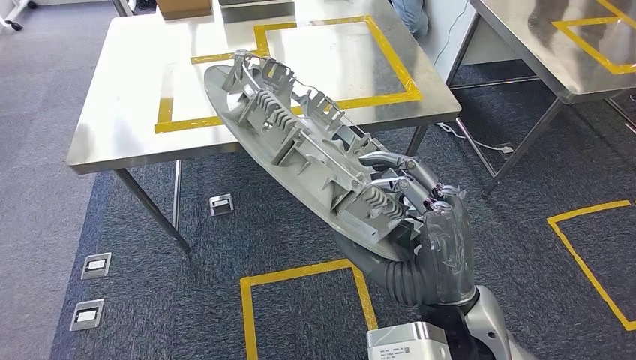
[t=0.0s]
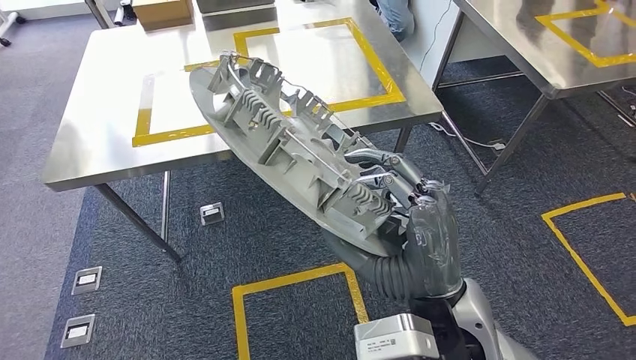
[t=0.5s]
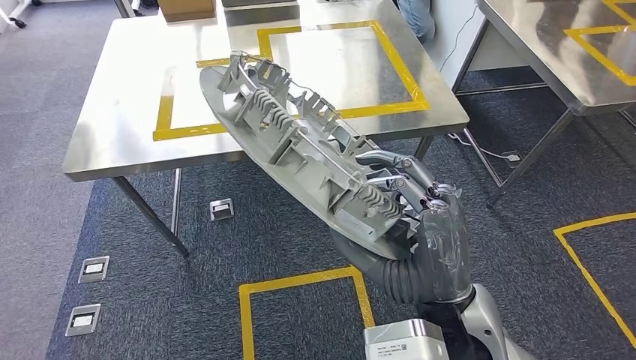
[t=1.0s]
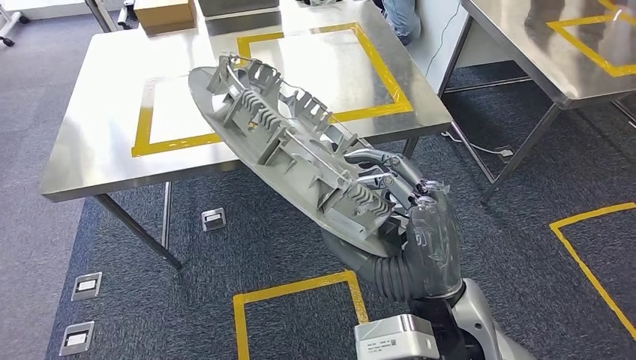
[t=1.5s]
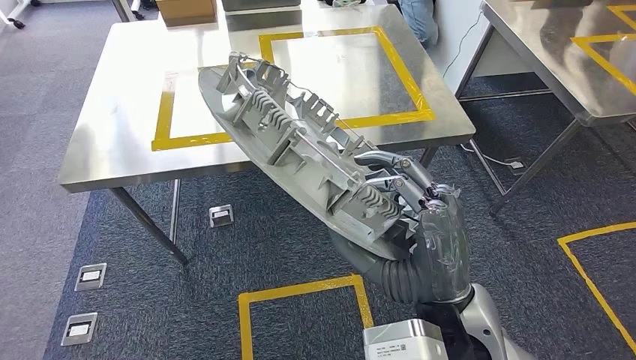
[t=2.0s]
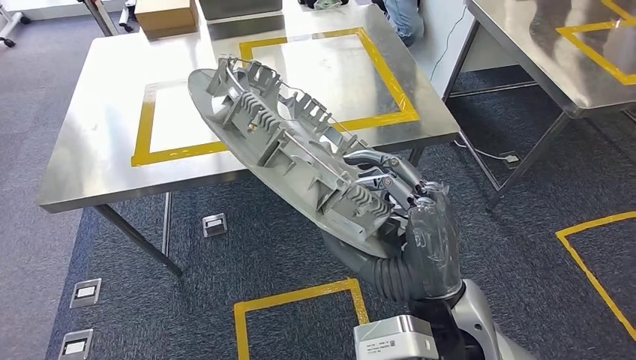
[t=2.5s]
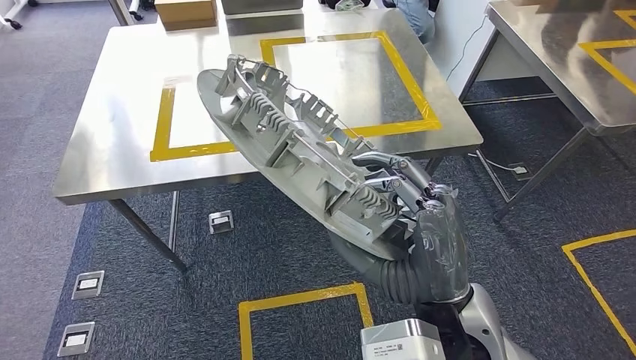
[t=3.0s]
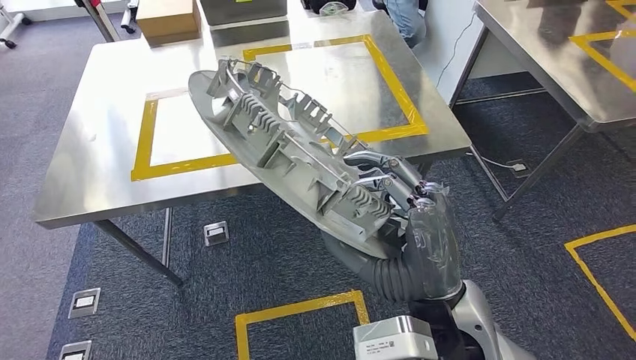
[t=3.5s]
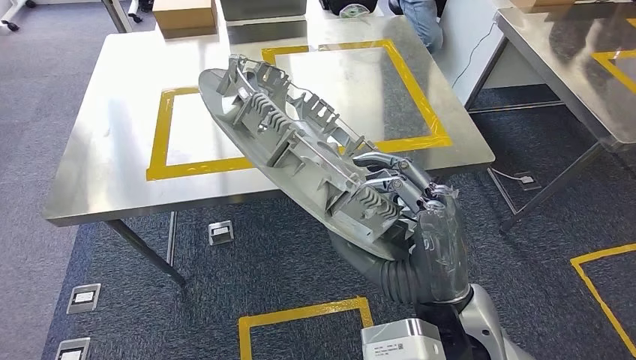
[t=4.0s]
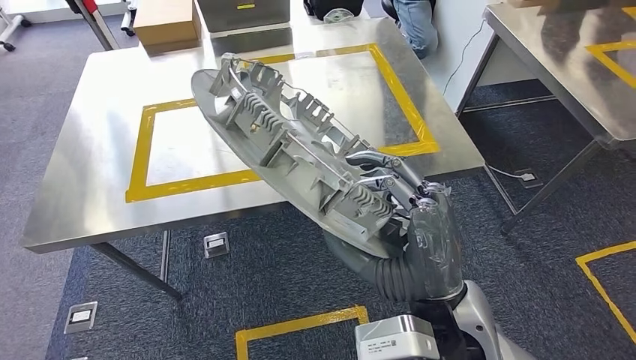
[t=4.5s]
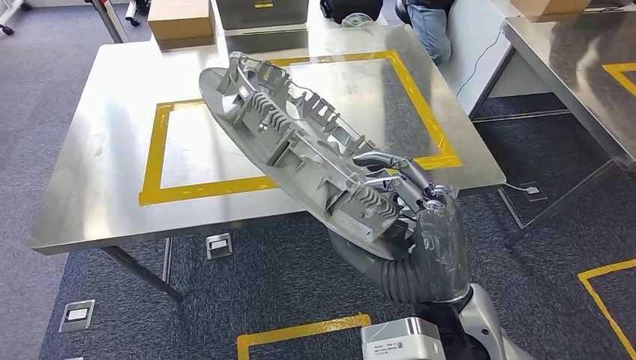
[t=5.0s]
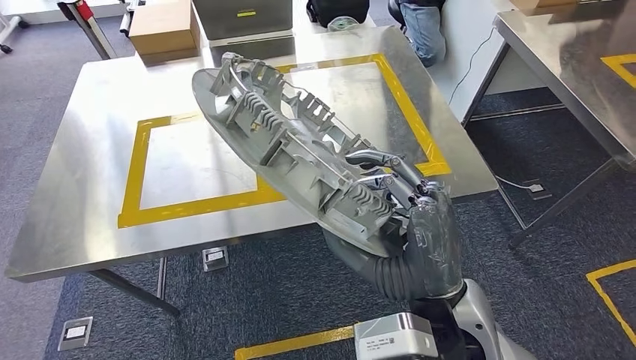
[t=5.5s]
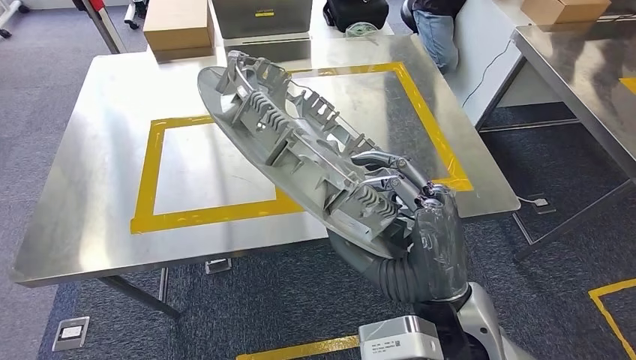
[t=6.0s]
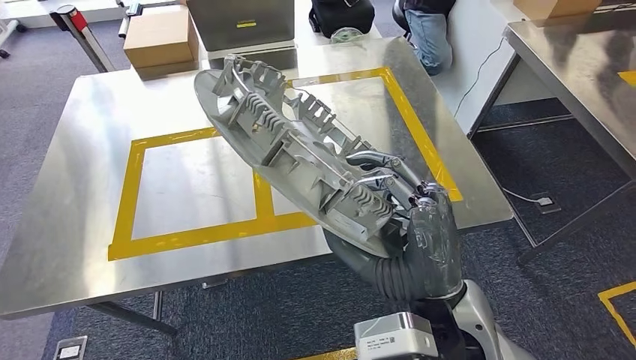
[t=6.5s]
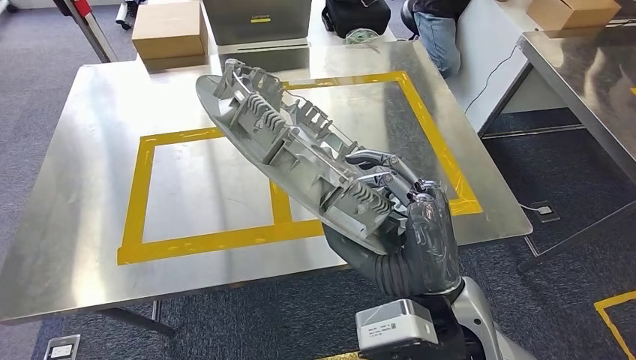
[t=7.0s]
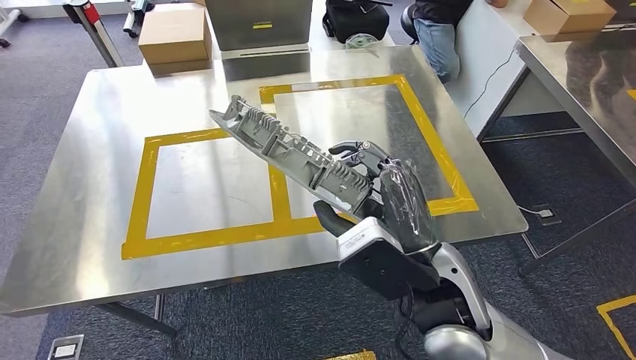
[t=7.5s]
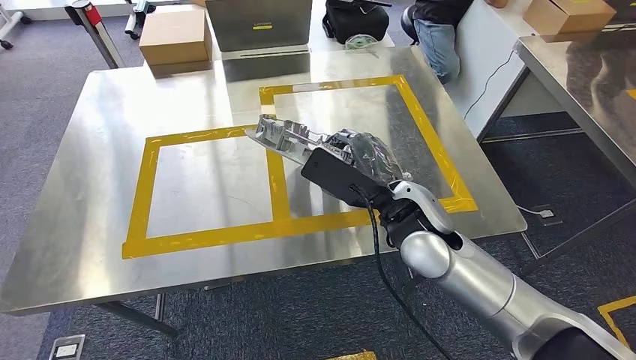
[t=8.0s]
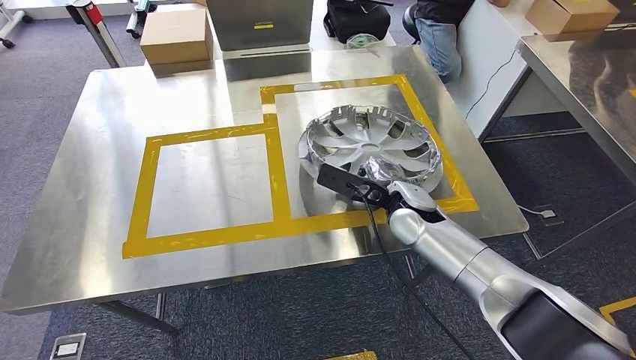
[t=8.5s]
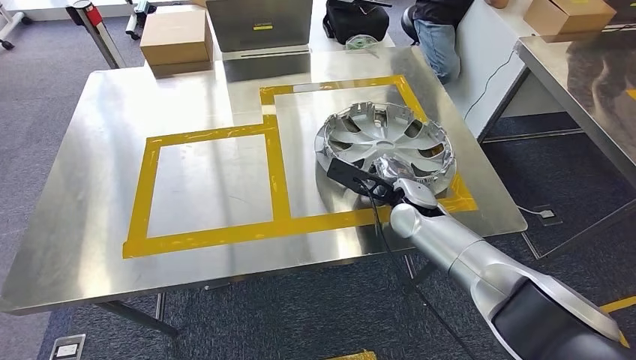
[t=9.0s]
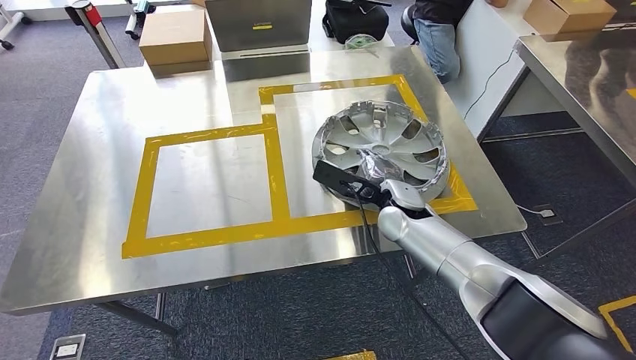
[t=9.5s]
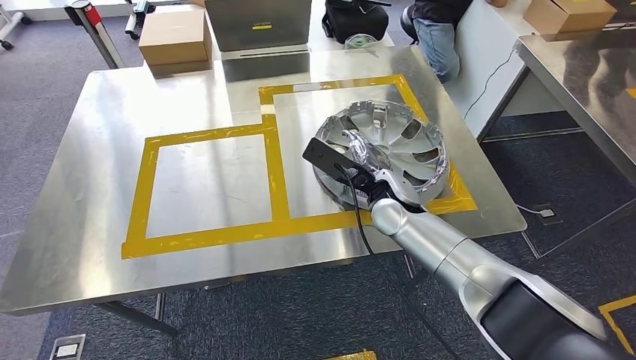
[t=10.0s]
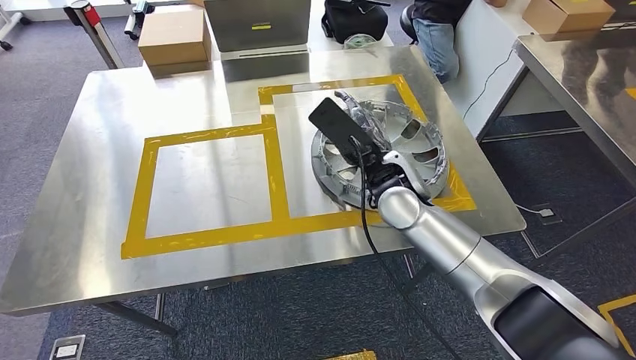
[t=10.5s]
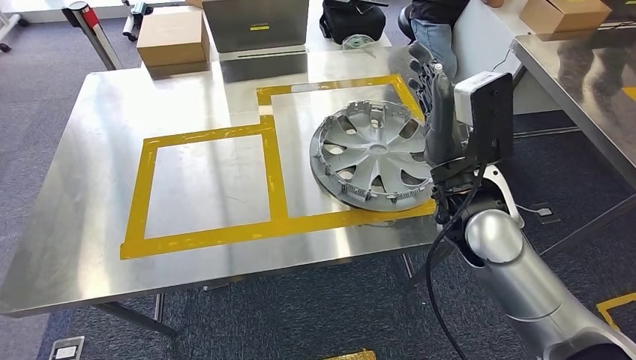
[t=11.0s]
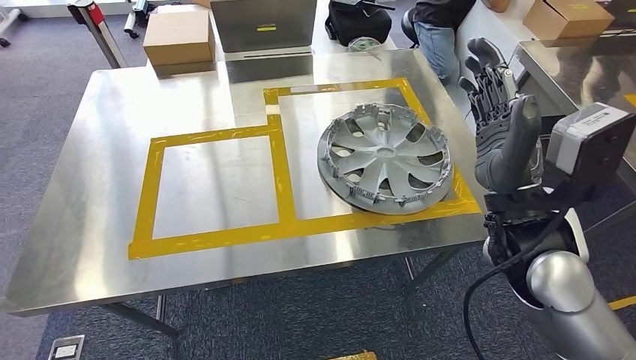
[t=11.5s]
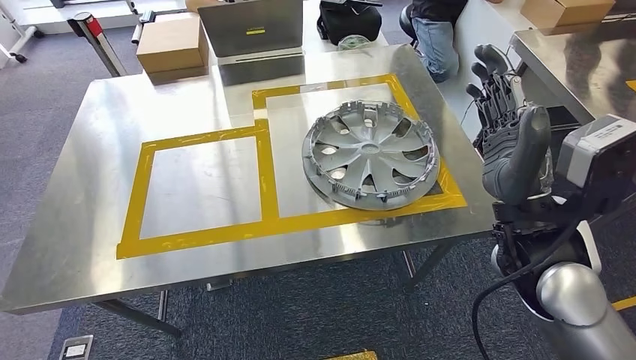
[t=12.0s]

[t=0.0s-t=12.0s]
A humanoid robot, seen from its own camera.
Step, t=0.0s to t=10.5s: Insert the large material into the corresponding slot on the workbench.
t=8.0s to t=10.0s: The right hand travels forward and downward by about 10 cm.

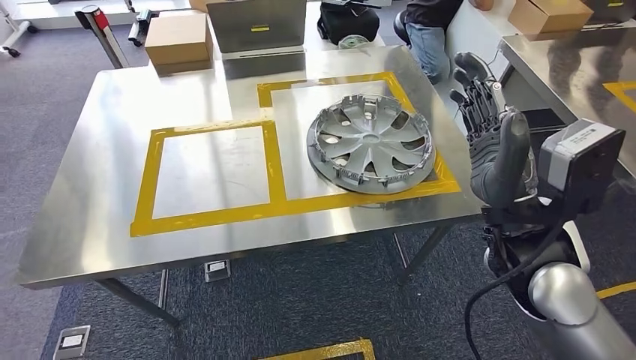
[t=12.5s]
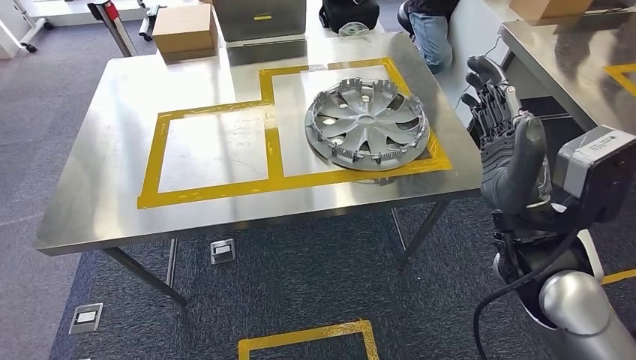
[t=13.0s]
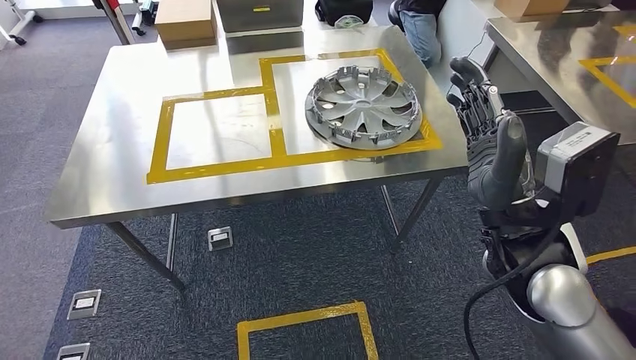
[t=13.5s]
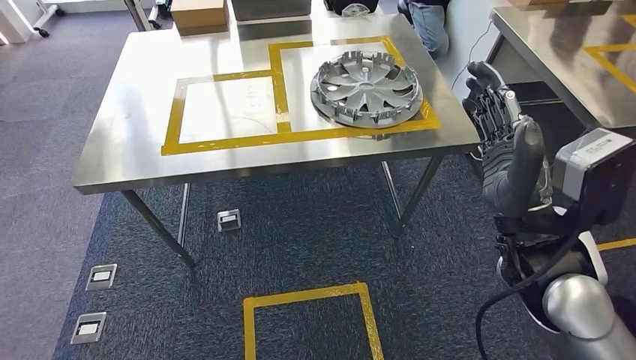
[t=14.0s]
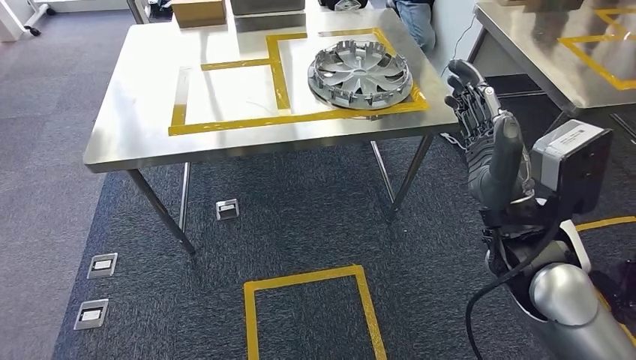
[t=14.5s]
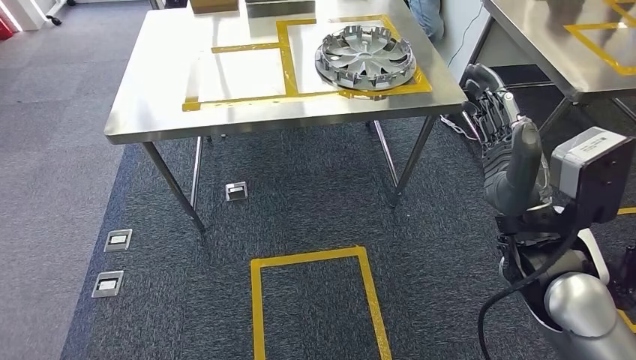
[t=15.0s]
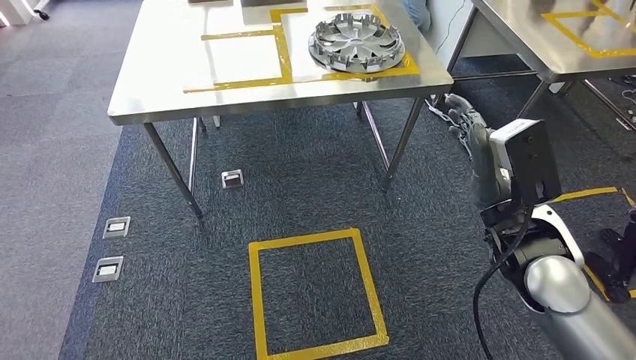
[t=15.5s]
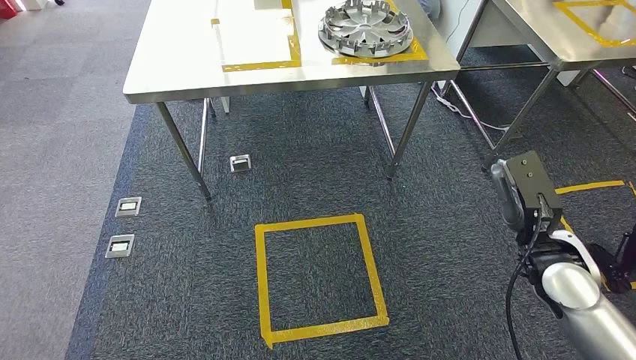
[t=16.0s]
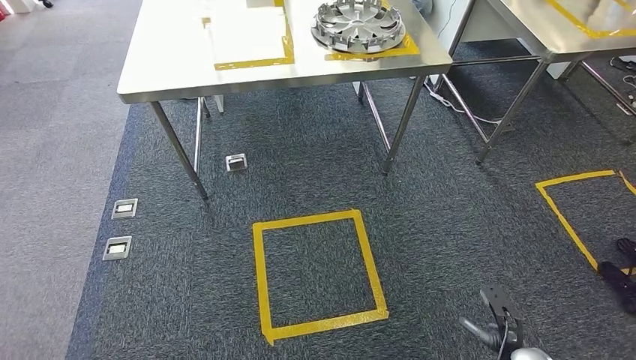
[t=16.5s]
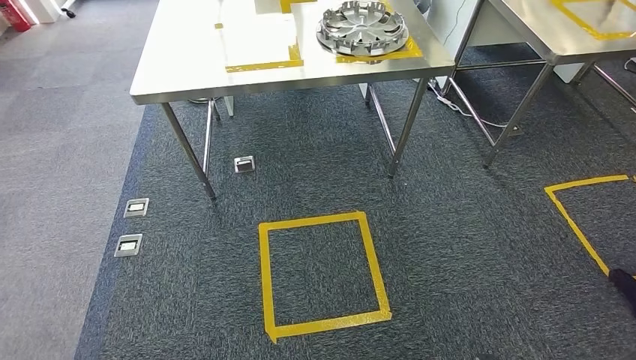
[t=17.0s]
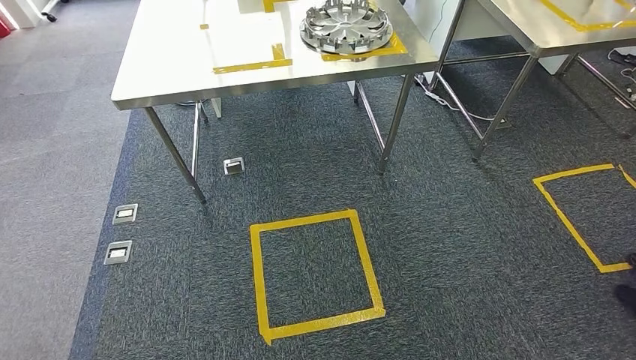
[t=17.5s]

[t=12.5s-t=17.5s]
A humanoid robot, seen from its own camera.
Step, t=12.5s to t=17.5s: Move to the initial position of the shelf.
